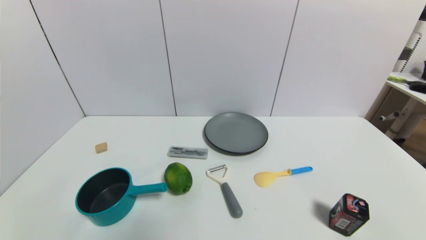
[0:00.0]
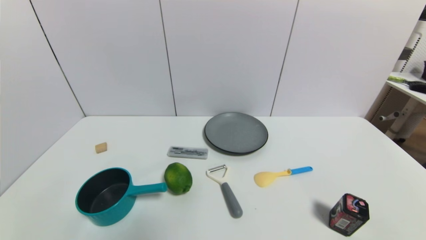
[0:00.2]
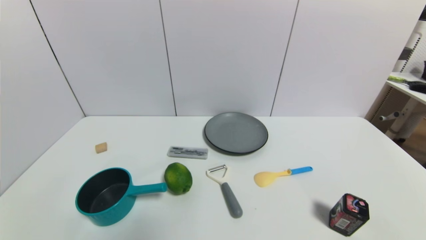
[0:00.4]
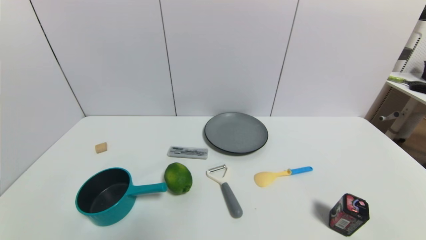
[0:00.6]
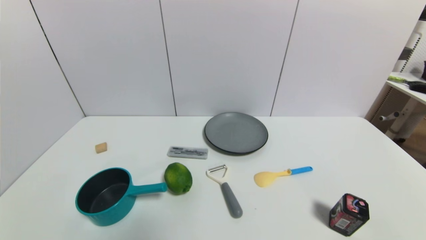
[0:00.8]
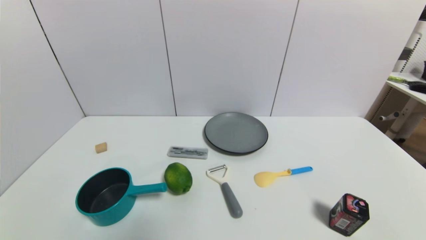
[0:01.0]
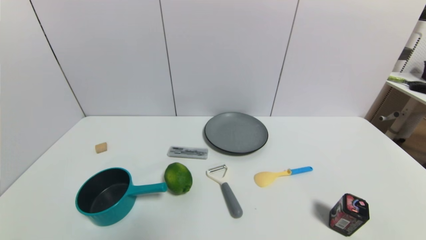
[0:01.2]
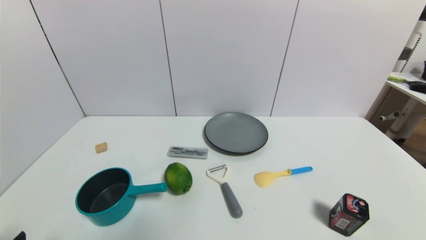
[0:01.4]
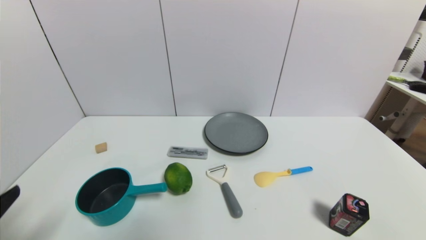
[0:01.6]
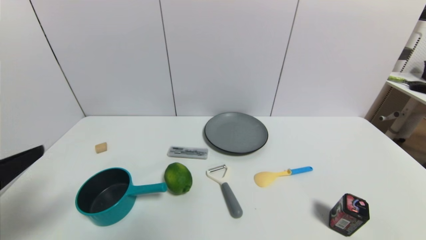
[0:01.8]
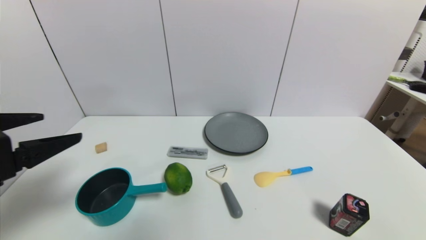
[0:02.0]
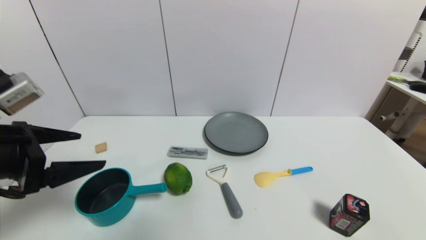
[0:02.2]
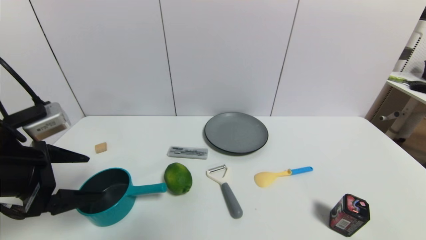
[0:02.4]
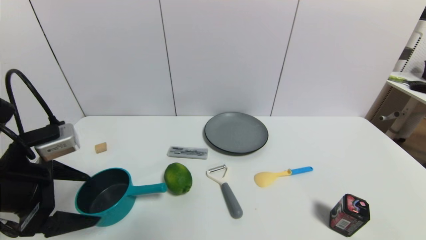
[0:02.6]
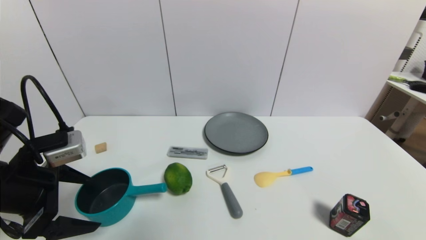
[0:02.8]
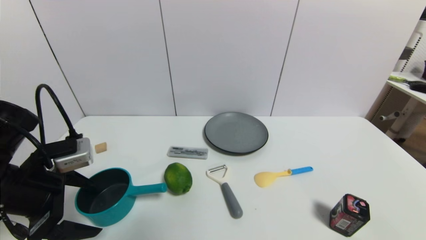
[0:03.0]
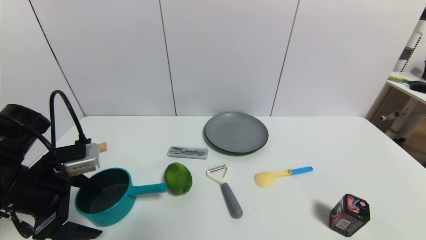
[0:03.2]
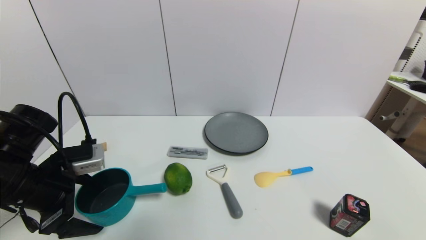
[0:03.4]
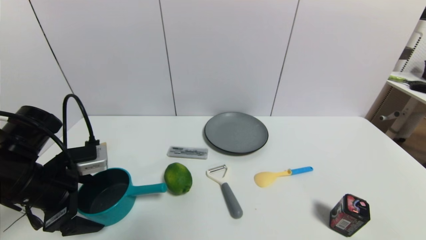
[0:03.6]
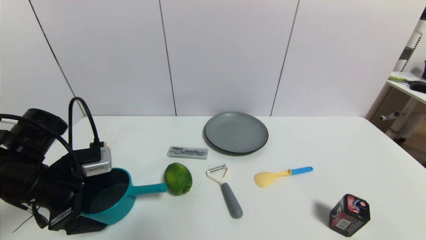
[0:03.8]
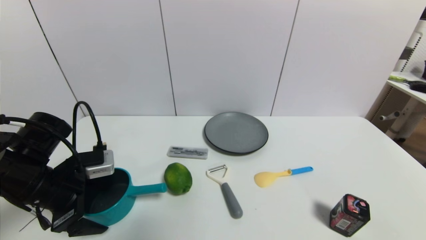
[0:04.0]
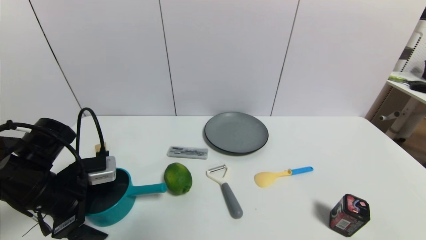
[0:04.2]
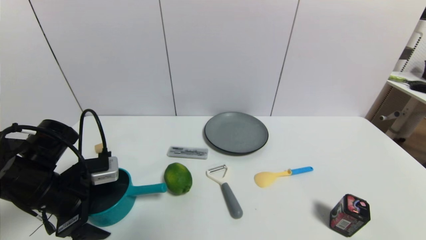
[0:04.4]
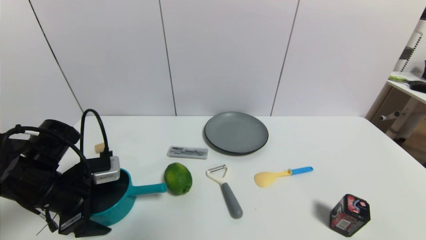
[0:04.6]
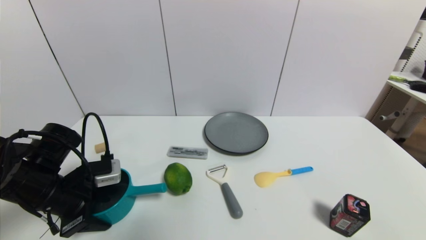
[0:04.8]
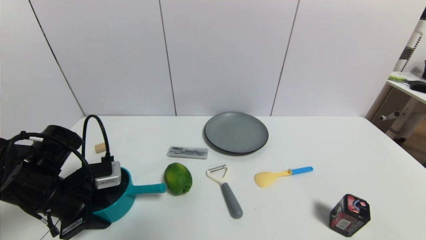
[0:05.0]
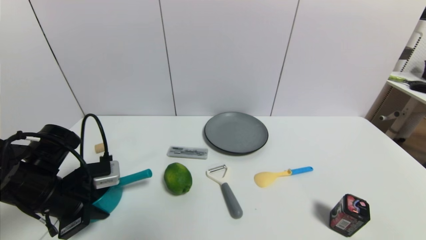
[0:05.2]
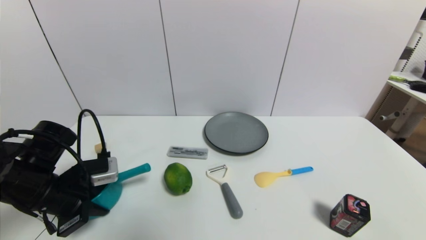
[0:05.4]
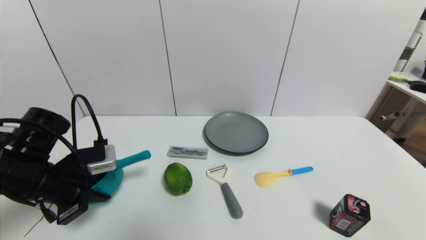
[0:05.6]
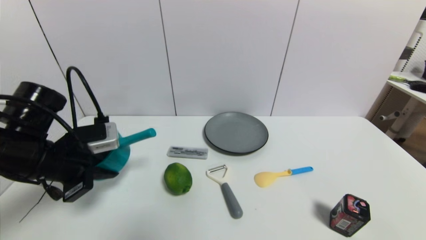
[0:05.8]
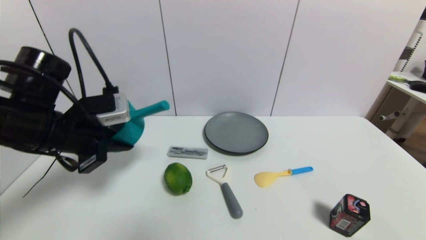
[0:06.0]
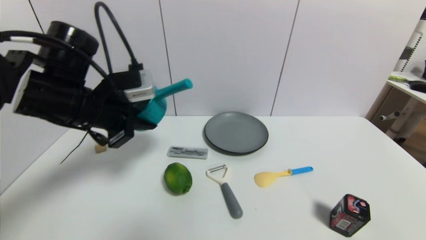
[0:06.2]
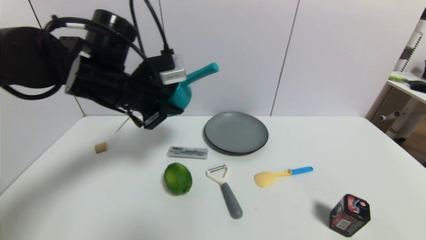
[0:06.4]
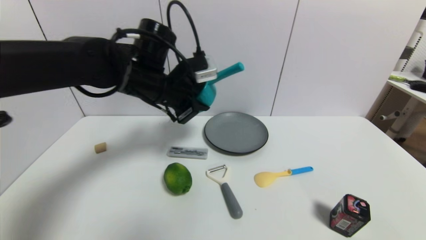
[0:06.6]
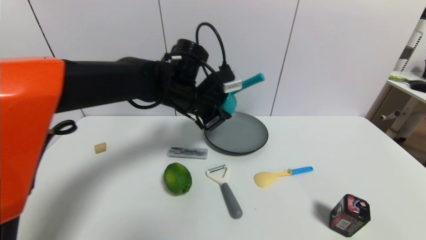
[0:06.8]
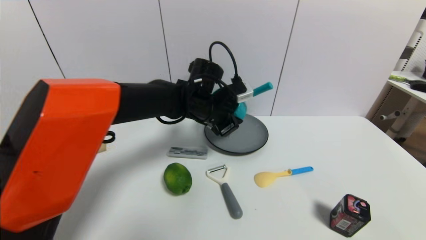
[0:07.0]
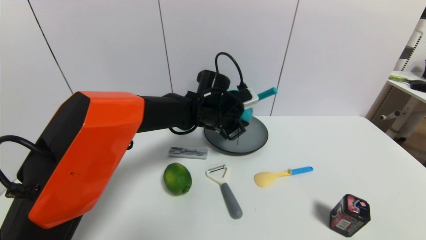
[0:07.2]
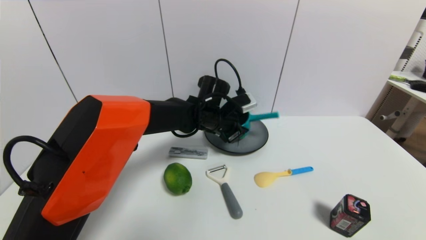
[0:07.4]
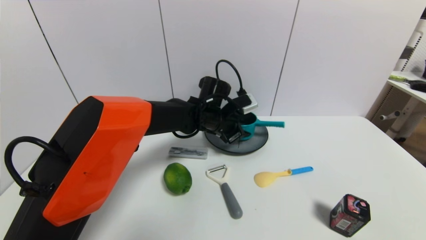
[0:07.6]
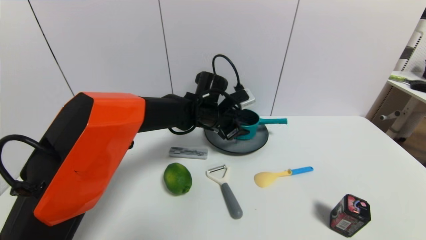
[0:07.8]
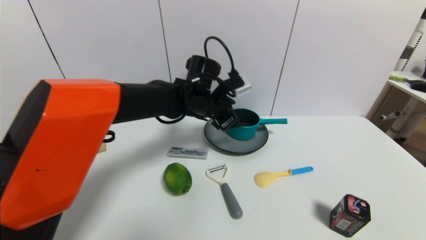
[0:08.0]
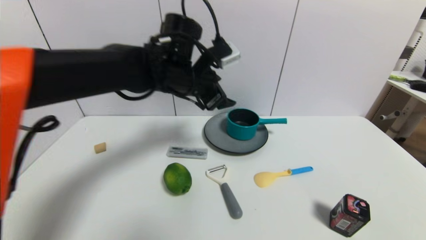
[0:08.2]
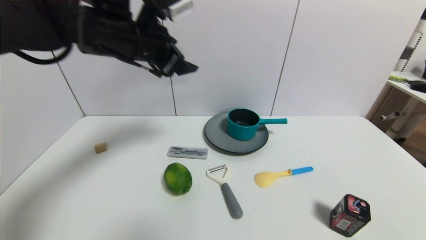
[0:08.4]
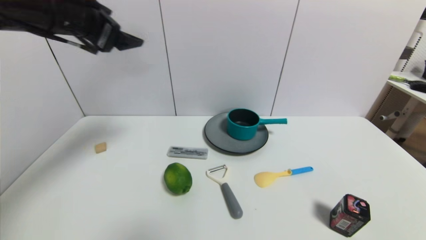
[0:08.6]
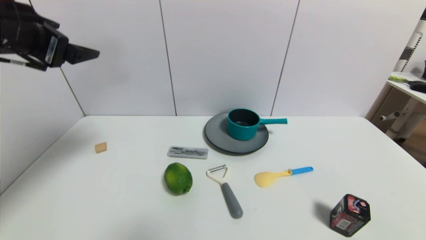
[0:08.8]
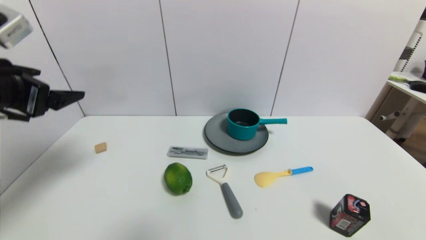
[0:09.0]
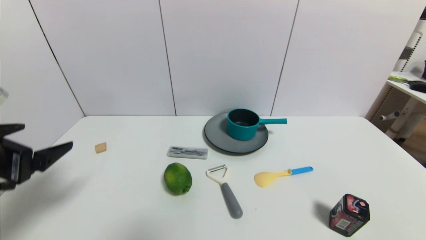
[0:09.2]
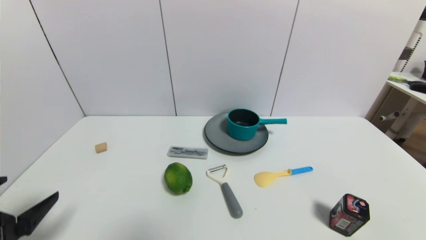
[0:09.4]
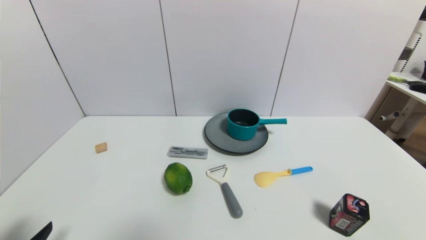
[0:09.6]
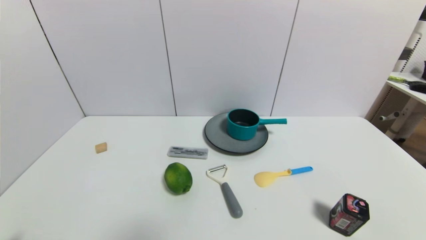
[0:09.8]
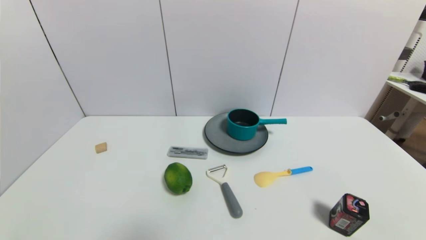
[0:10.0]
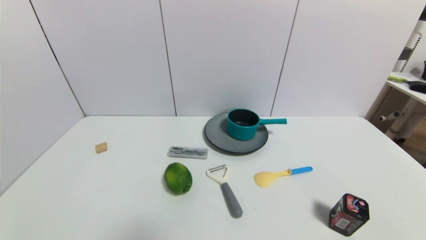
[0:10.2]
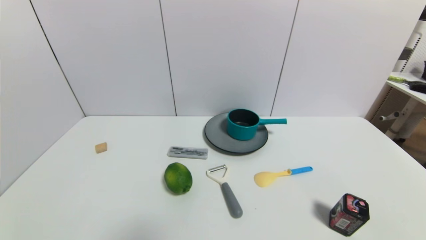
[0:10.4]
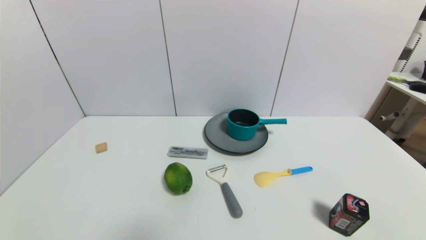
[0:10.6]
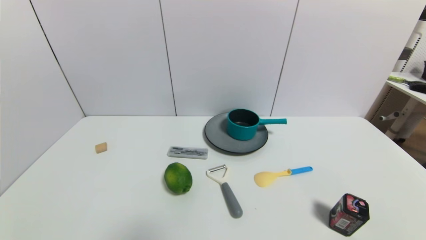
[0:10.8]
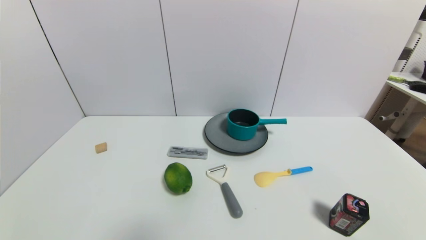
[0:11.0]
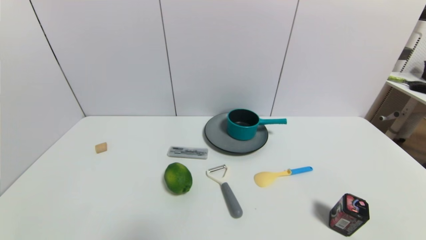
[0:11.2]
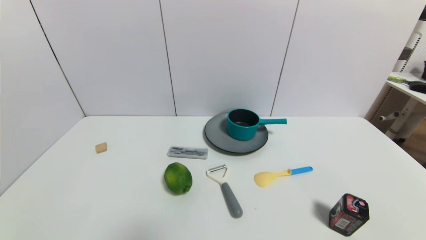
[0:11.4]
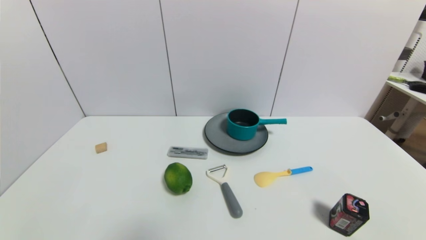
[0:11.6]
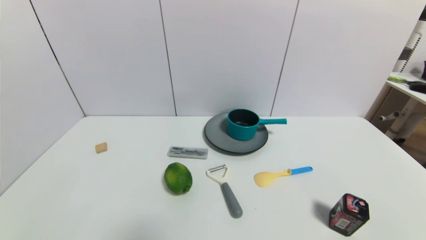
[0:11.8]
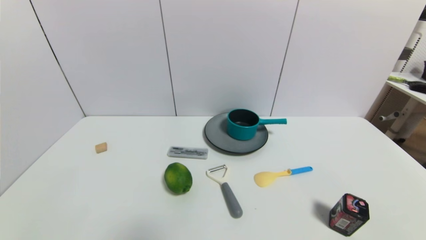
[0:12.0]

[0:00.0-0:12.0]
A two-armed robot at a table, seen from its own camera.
Task of the whole recording: use a gripper to pick the target object and place on the gray plate.
Step, 0:00.0 to 0:05.2: Grasp the blue pot with the left gripper.
Step, 0:05.4 to 0:08.0: Place the blue pot on the gray plate with the left gripper.
0:00.0 to 0:01.6: The left gripper travels upward by approximately 15 cm.
0:01.6 to 0:03.0: The left gripper travels forward by some 15 cm.
0:03.0 to 0:04.4: The left gripper shifts some 5 cm downward.
0:04.4 to 0:06.0: The left gripper shifts about 10 cm upward, and closes.
0:06.0 to 0:07.6: The left gripper moves to the right and forward, approximately 30 cm, and opens.
0:07.6 to 0:09.0: The left gripper heads to the left, backward and upward, covering some 40 cm, and opens its fingers.
0:09.0 to 0:10.4: The left gripper goes roughly 30 cm downward and backward.
0:10.4 to 0:12.0: Both grippers stay put.
